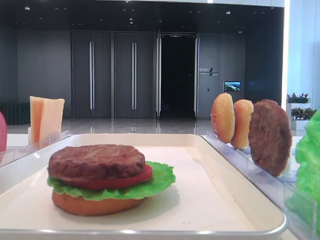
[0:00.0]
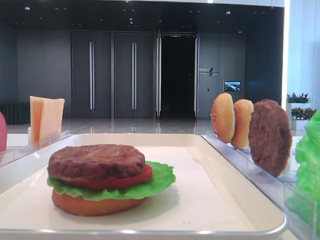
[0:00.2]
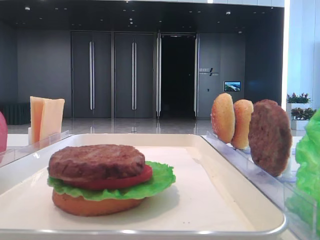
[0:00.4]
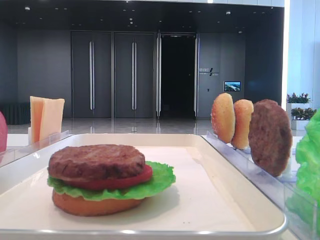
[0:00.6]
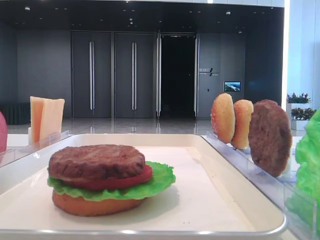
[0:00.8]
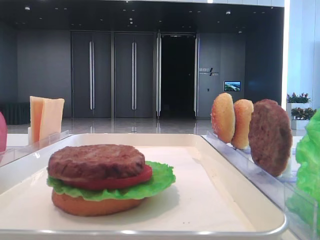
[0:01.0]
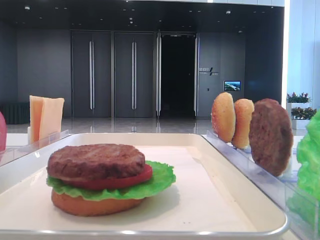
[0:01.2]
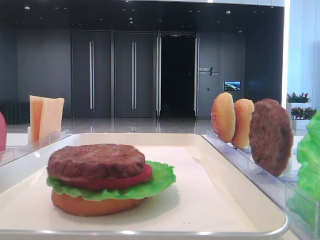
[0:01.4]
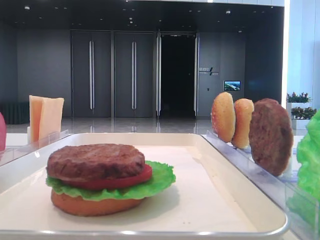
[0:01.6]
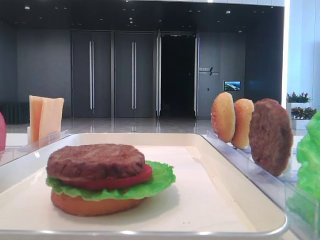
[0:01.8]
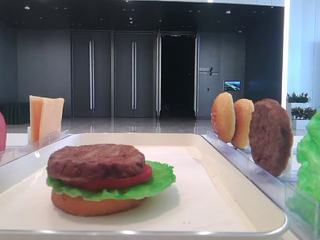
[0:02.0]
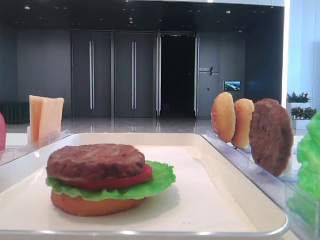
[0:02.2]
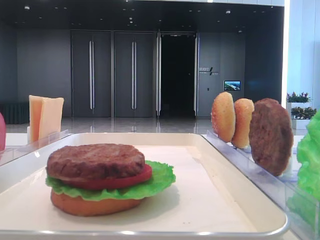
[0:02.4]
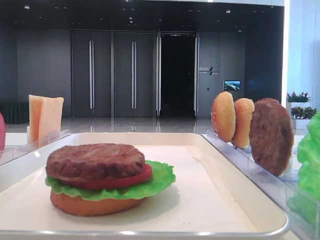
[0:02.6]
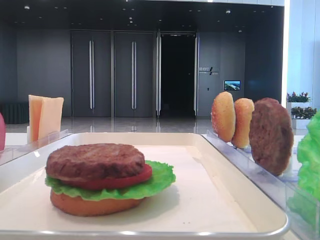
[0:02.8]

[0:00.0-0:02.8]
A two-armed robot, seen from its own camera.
0:00.0 to 0:01.4: The right gripper heads backward and downward, covering some 15 cm.
0:01.4 to 0:02.8: The two grippers keep their place.

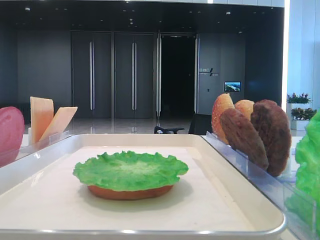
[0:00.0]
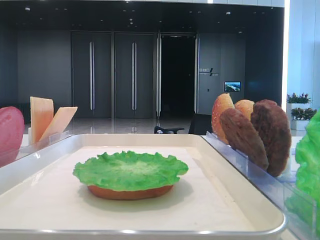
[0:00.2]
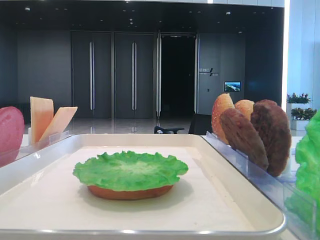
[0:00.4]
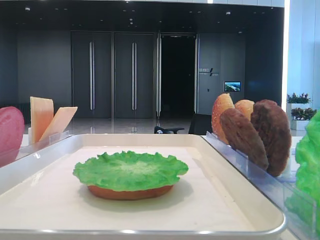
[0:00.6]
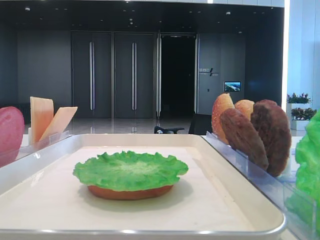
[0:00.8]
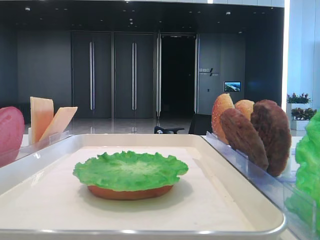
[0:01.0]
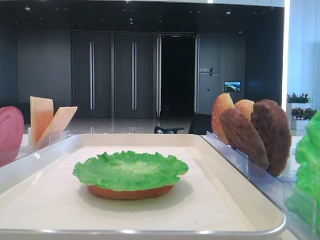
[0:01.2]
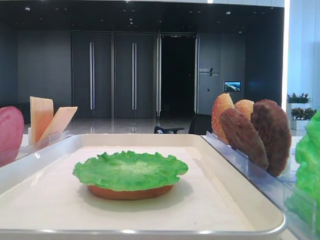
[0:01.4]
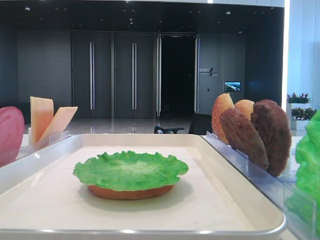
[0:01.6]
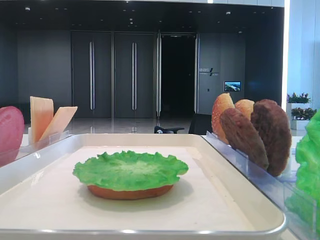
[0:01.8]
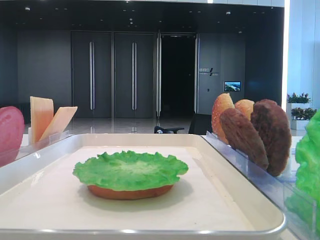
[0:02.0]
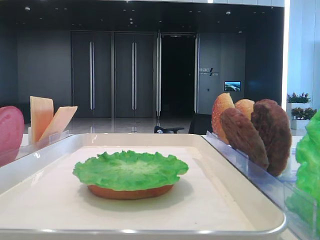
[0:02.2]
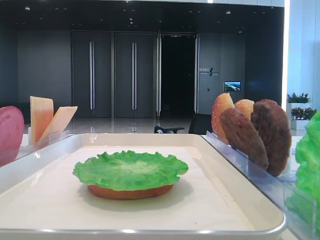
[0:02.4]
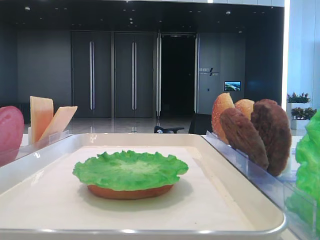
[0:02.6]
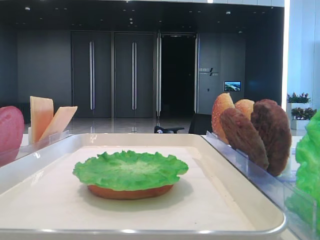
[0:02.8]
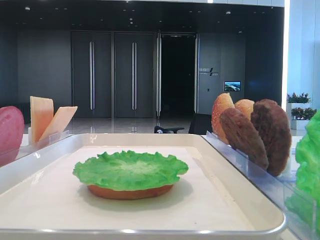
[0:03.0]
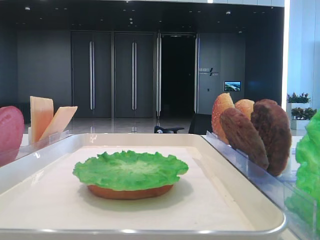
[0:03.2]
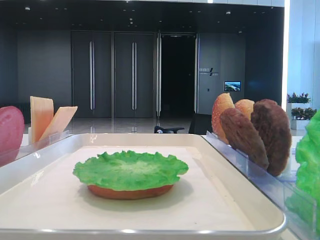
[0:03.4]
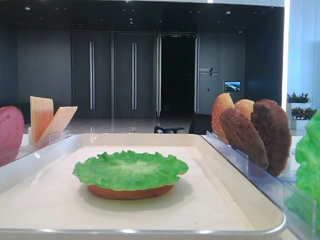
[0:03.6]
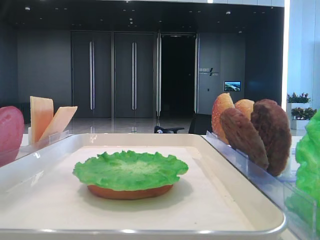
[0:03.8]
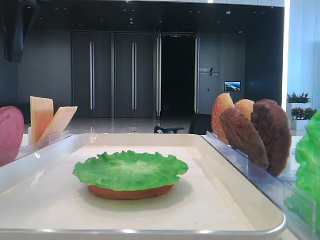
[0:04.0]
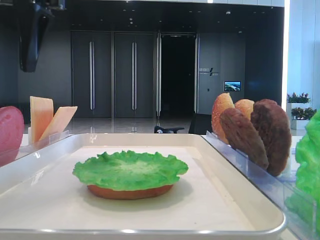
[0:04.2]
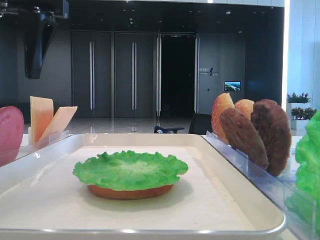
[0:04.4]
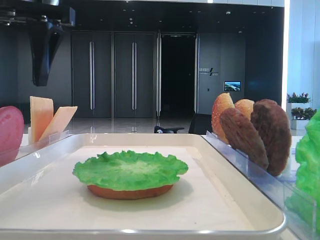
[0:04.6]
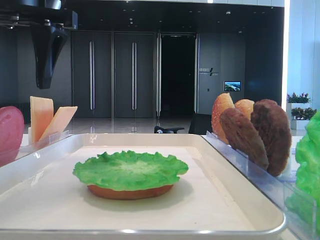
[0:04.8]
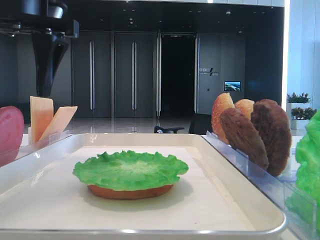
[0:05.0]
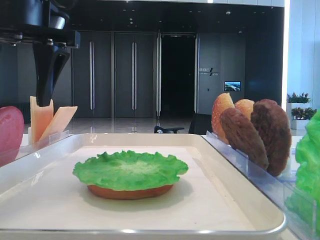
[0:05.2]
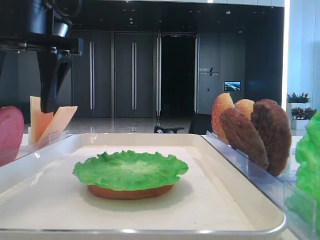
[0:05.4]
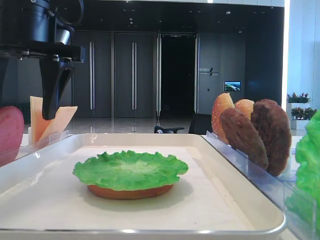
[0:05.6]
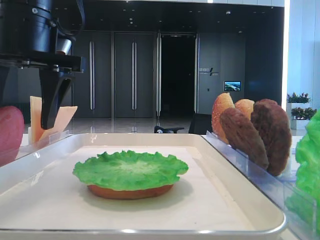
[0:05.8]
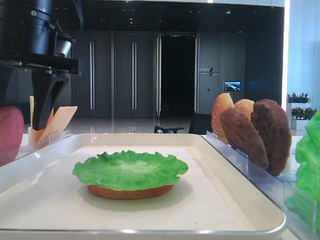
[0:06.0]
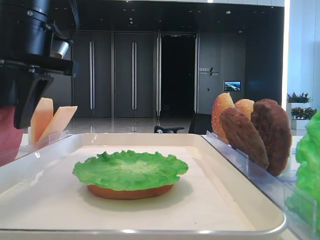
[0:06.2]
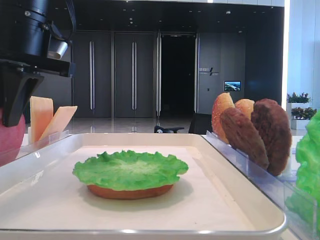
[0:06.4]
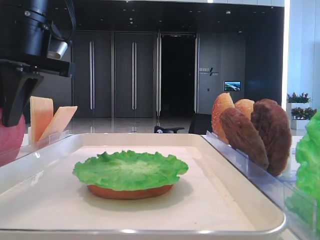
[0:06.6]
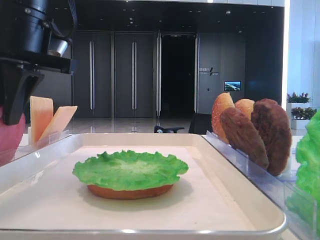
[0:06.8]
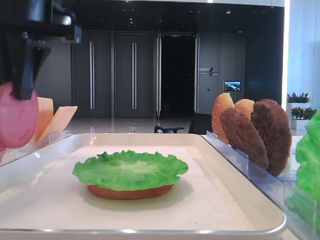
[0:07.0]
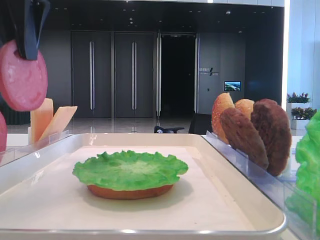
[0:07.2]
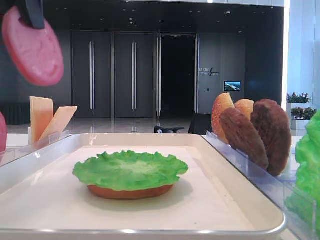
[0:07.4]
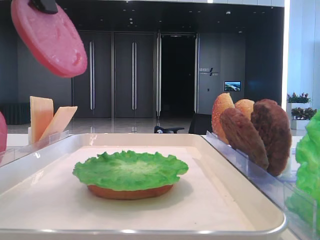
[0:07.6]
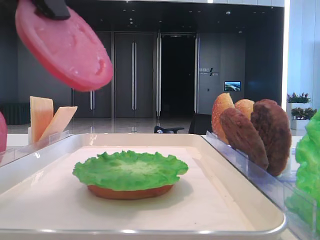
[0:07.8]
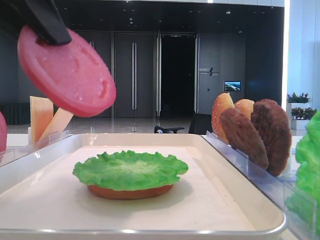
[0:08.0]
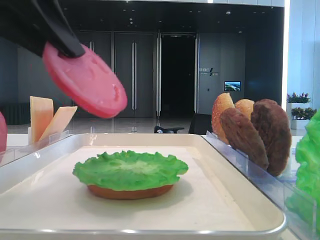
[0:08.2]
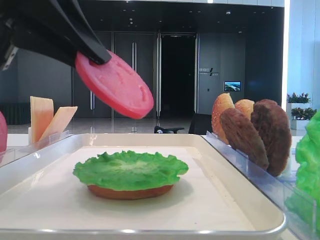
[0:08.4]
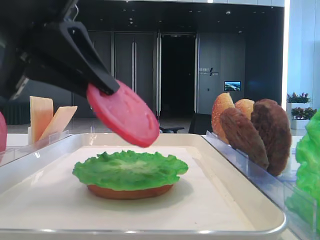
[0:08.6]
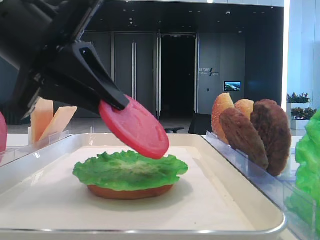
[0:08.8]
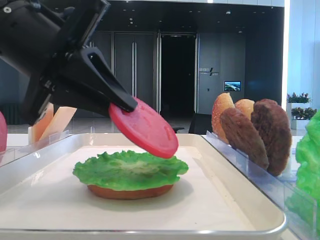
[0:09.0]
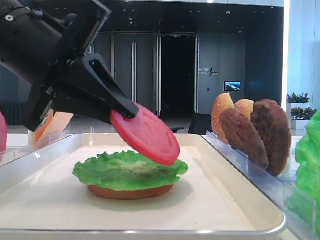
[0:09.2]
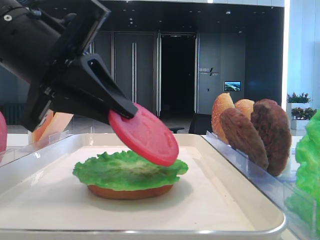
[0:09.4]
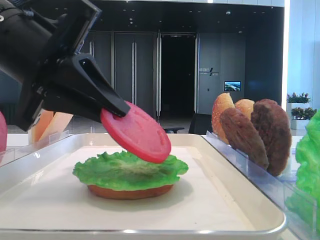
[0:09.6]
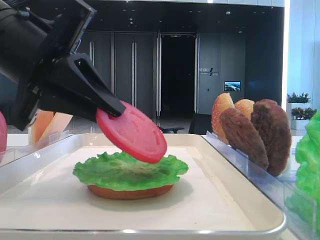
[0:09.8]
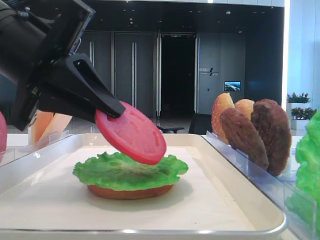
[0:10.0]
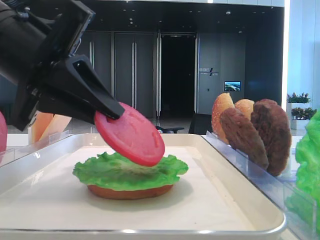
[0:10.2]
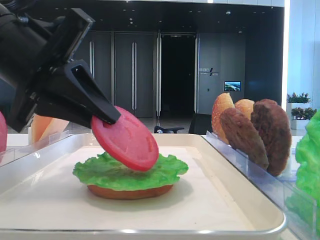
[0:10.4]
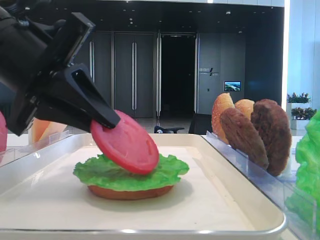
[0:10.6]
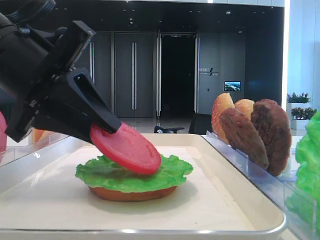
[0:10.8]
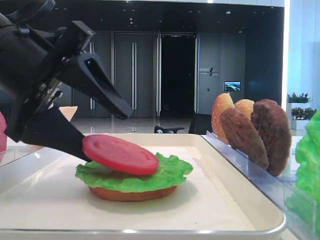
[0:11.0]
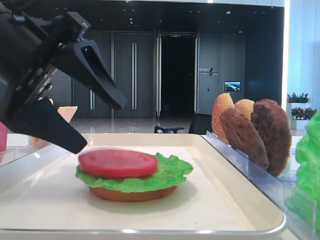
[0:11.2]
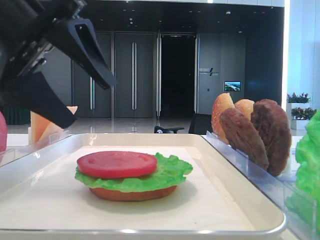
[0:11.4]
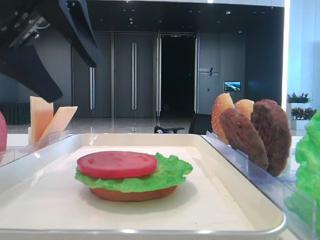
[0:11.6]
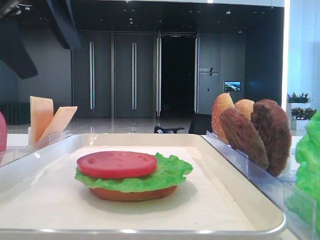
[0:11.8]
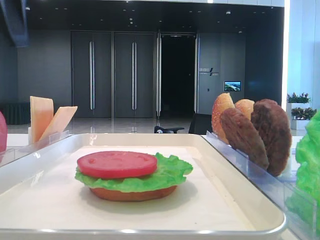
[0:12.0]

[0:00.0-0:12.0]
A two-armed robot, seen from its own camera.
Step, 0:00.0 to 0:06.6: Pick up the tomato slice with the left hand.
Step, 0:06.8 to 0:11.0: Place the tomato slice on the lettuce leaf with the left hand.
0:03.0 to 0:04.4: The left gripper shifts some 15 cm to the right.
0:04.4 to 0:06.0: The left gripper is displaced downward by roughly 5 cm.
0:06.0 to 0:07.6: The left gripper heads backward and upward, covering about 15 cm, and closes.
0:07.6 to 0:09.0: The left gripper travels downward by approximately 15 cm.
0:09.0 to 0:10.4: The grippers move only a little.
0:10.4 to 0:12.0: The left gripper heads upward and to the left, covering approximately 15 cm, and opens its fingers.

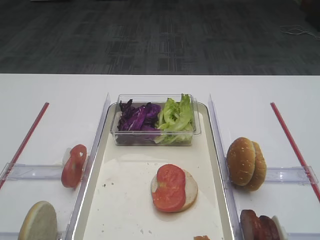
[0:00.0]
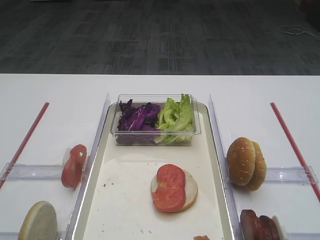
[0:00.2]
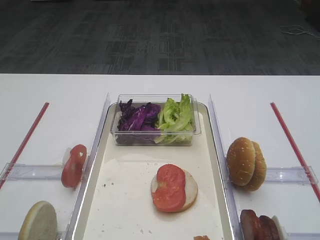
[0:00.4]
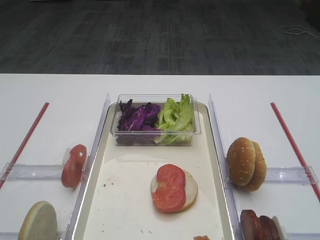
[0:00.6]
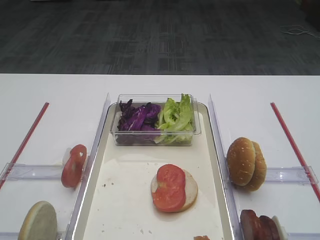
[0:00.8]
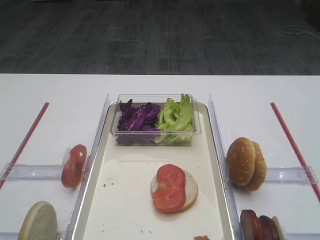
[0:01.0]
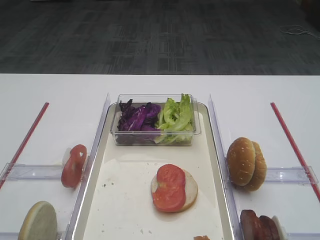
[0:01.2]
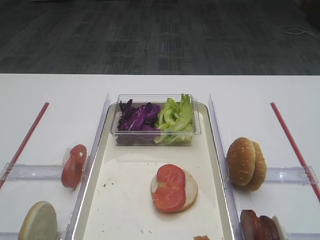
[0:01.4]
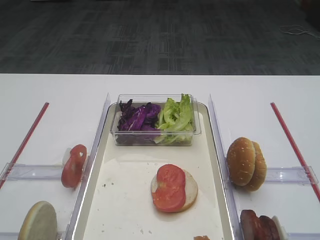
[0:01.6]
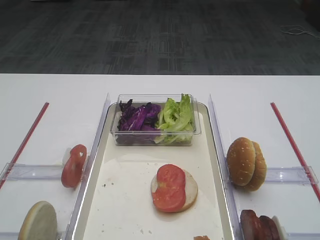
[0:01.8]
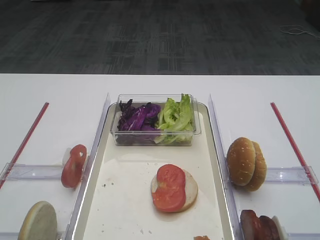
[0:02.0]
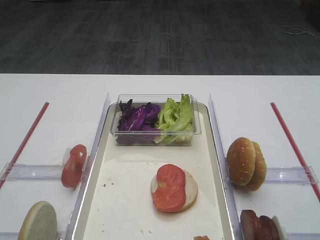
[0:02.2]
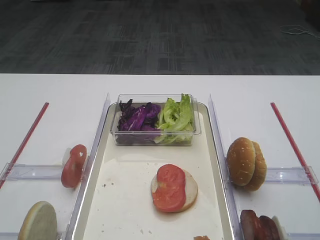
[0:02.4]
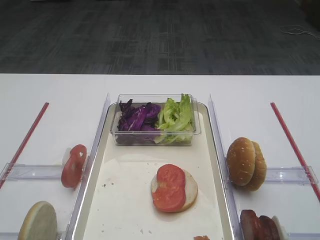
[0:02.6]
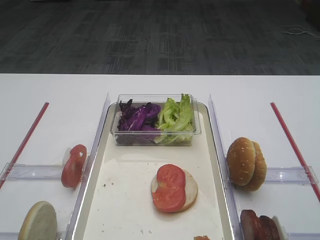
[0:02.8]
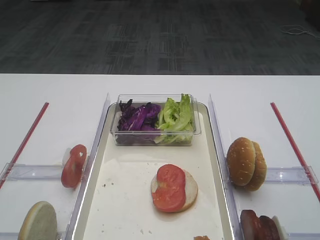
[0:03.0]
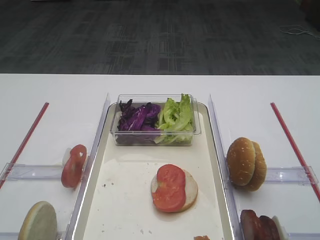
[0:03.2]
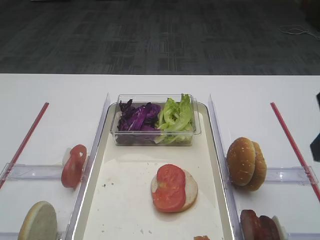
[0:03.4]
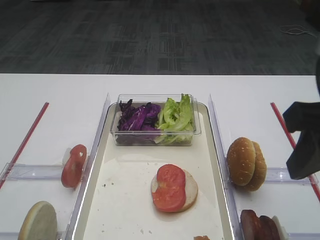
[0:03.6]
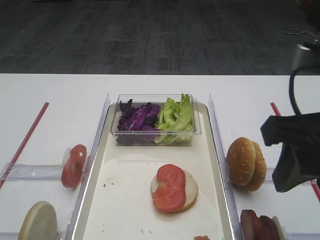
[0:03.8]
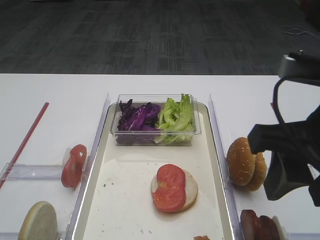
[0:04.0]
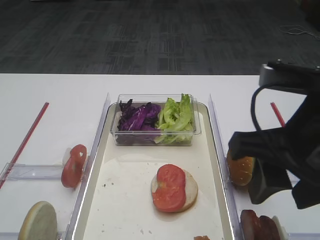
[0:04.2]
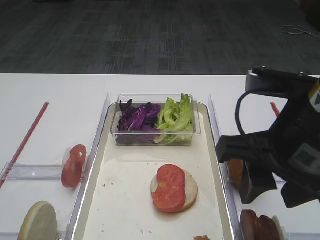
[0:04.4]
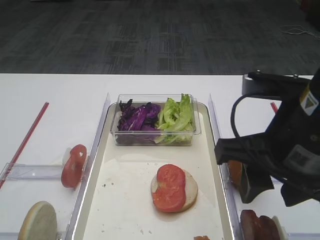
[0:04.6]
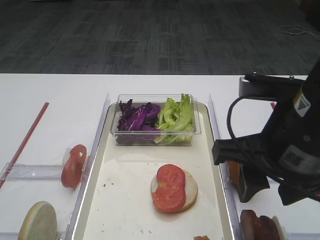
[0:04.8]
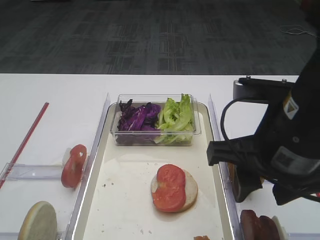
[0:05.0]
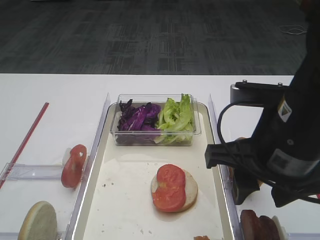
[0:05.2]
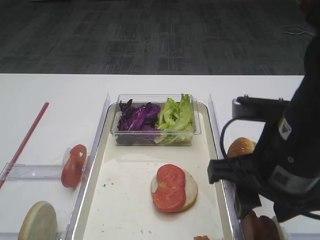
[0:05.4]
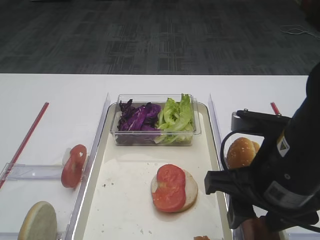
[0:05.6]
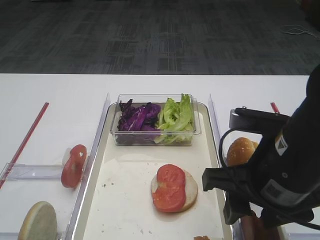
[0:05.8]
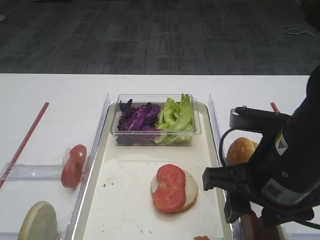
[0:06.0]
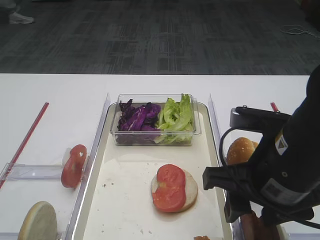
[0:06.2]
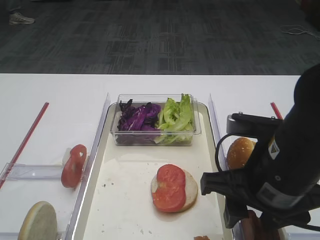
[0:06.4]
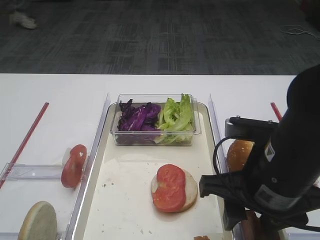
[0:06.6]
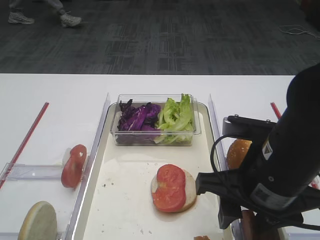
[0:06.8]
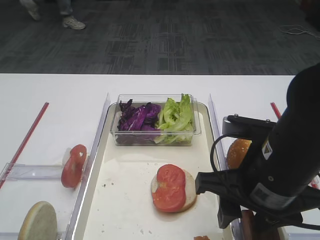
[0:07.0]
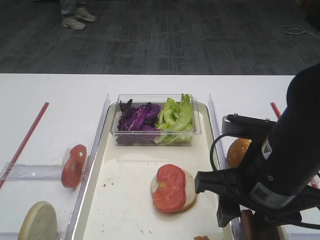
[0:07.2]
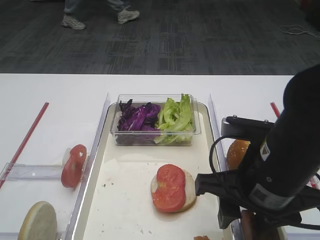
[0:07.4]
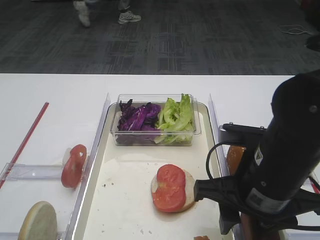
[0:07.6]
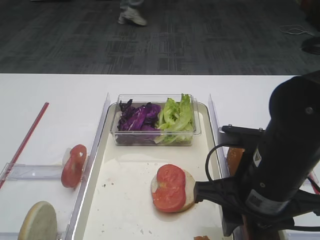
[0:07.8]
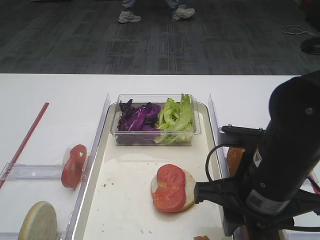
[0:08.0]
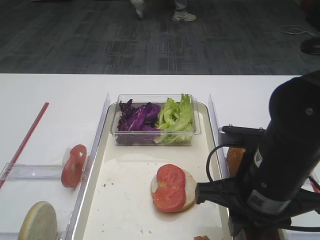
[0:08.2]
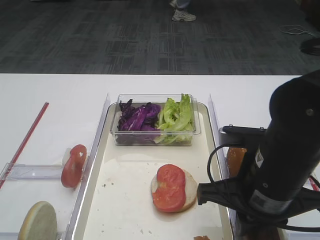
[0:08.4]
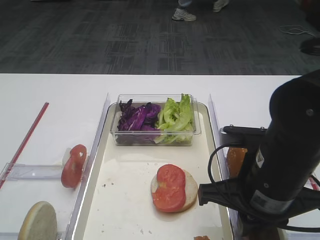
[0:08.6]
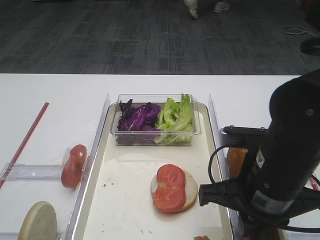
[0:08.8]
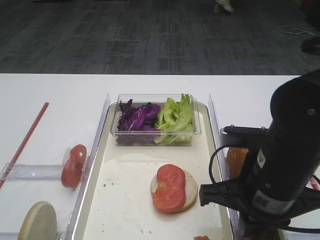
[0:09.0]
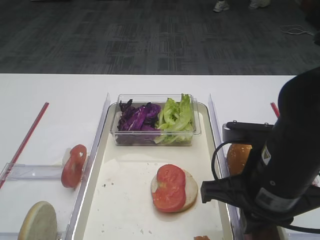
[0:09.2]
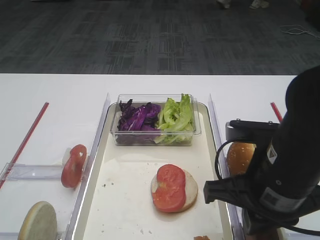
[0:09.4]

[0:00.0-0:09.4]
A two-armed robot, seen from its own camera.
0:03.2 to 0:04.8: The right gripper heads to the left and downward, covering roughly 15 cm.
0:04.8 to 0:06.2: The right gripper is displaced downward by roughly 5 cm.
0:06.2 to 0:07.8: The grippers move only a little.
0:07.8 to 0:09.4: The right gripper closes.
